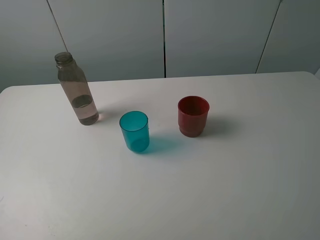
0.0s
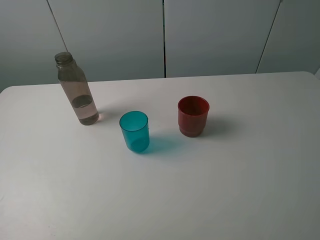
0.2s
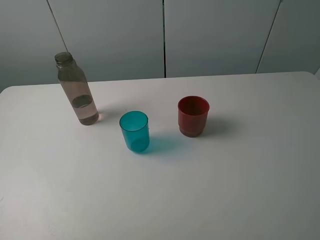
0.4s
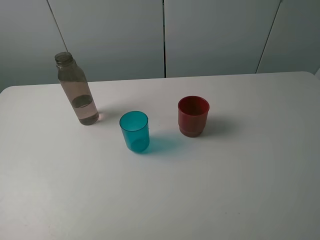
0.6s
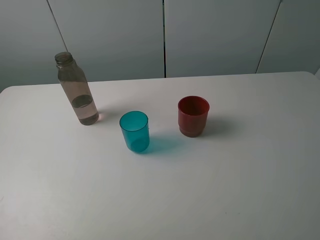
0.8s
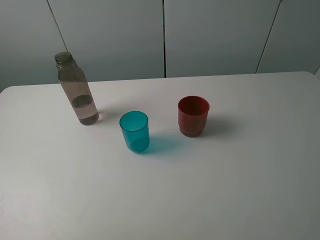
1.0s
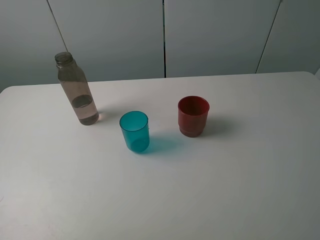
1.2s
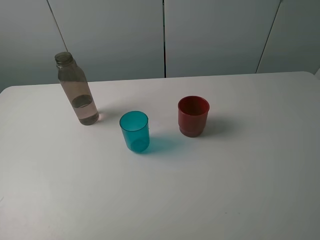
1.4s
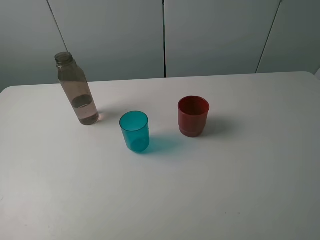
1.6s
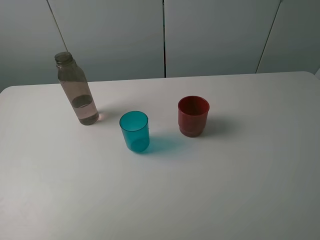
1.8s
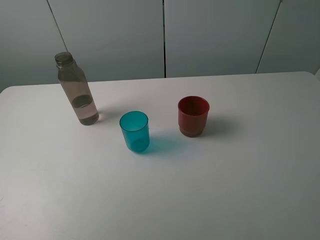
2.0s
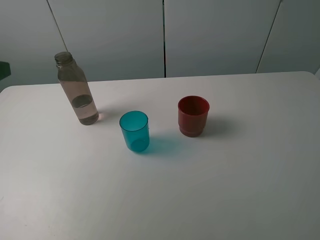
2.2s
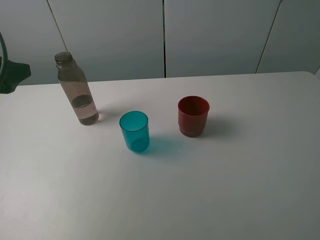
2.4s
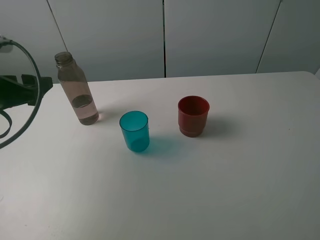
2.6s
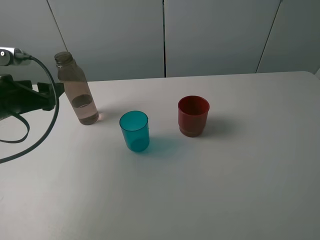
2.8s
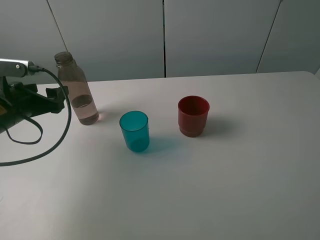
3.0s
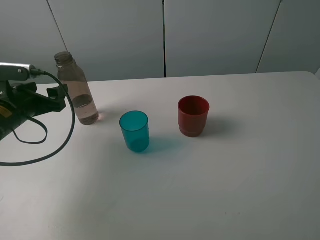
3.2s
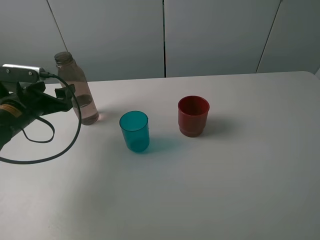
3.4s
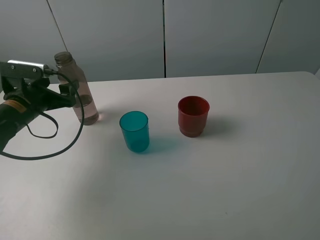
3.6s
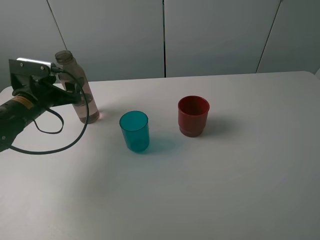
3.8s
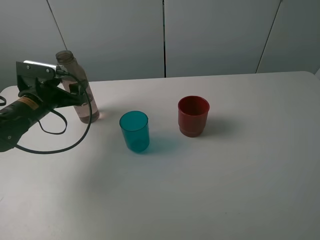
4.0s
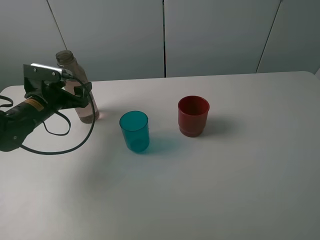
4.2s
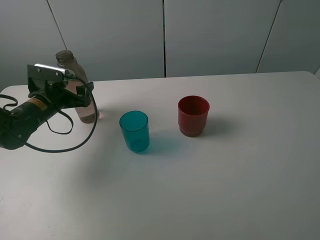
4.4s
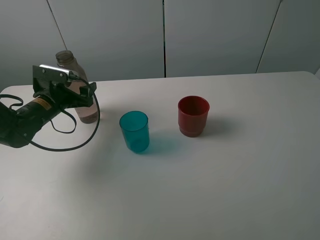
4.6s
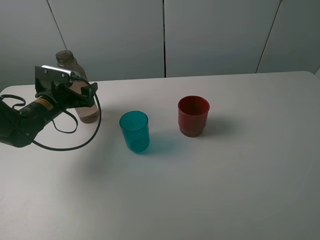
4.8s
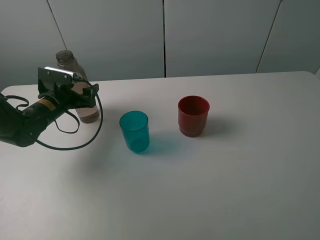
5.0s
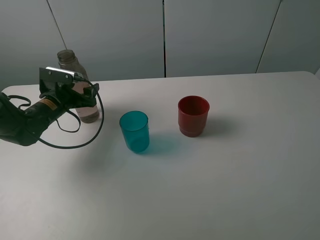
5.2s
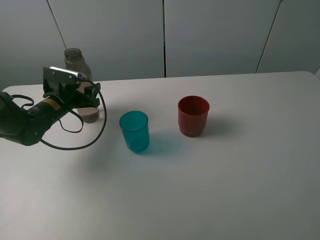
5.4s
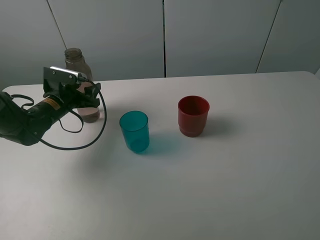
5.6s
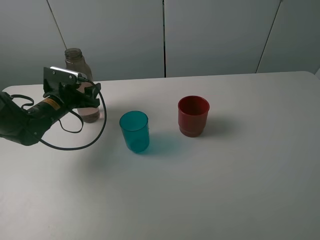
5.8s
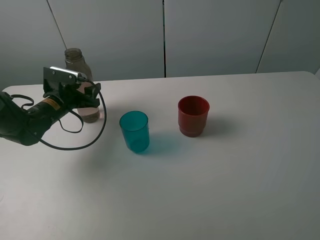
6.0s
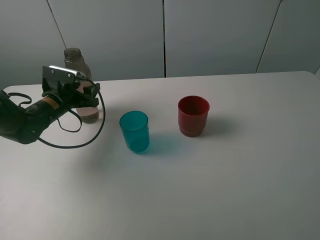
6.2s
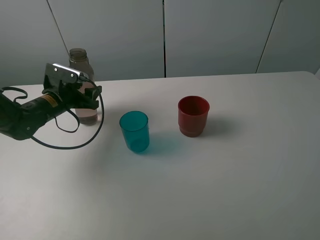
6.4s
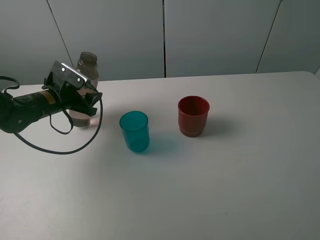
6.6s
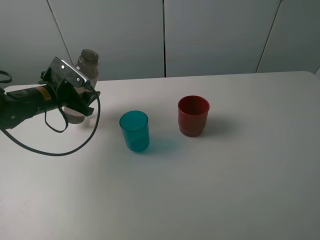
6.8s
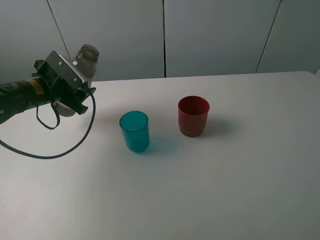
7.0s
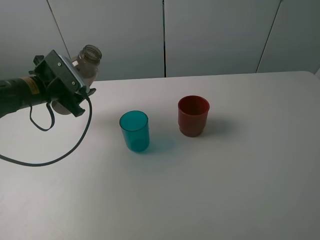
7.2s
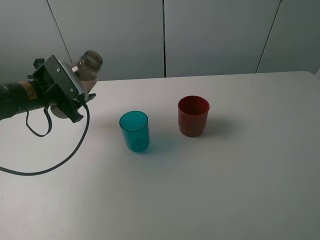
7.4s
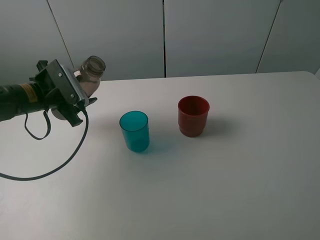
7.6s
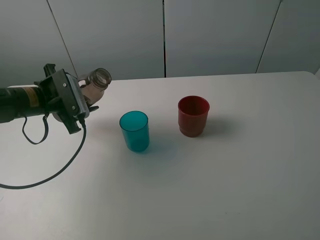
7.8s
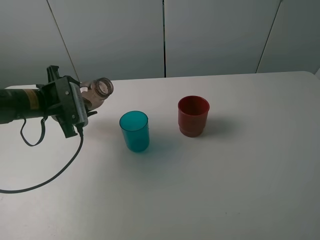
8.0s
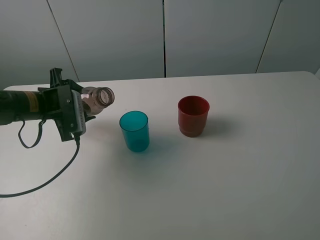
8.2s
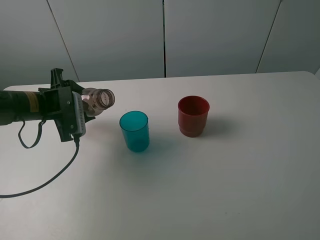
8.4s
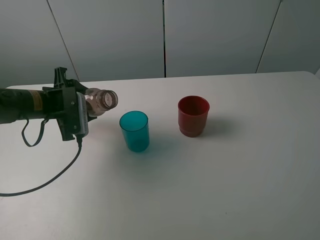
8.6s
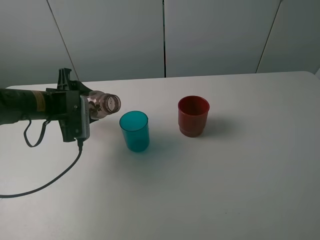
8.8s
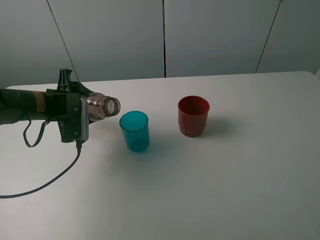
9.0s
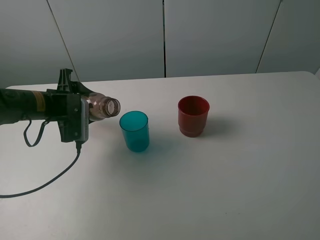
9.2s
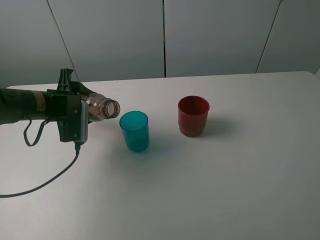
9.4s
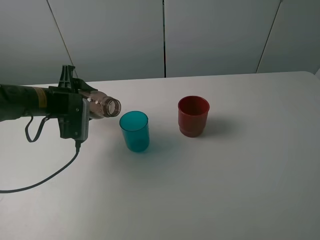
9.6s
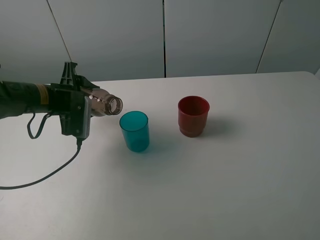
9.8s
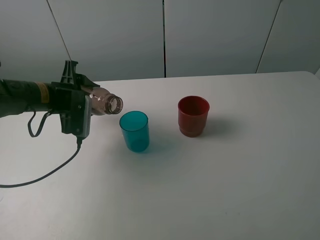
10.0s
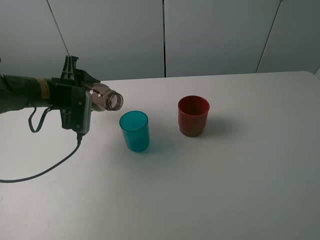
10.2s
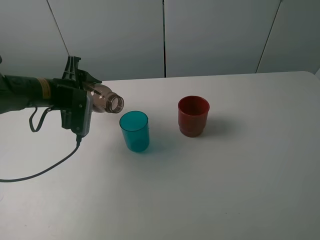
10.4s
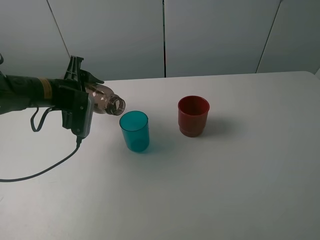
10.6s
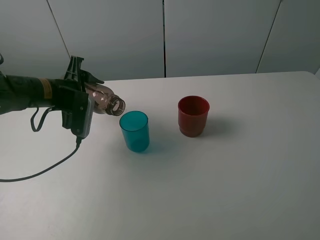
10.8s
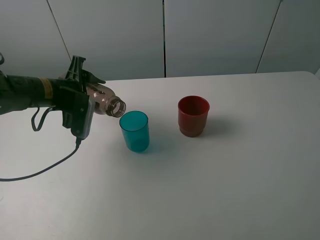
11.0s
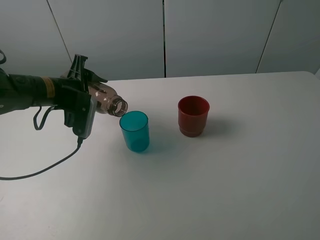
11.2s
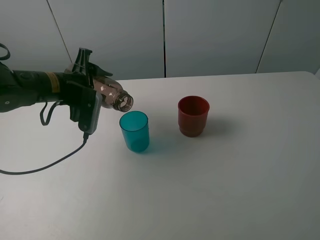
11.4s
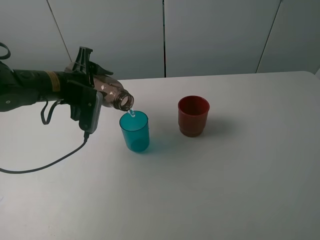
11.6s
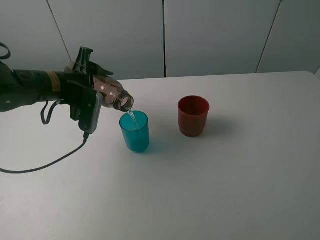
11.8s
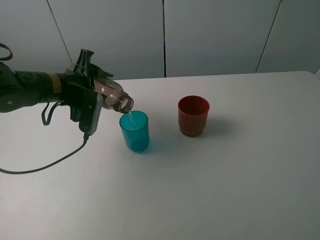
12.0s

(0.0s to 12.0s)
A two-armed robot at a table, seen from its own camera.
Task of the whole recording: pick up the bottle and pour water into the cup, then pick up the cup containing water and pour it into another cup.
Step, 0.0s - 5.6s: Grasp the brown bottle with the left gripper.
1.6s - 3.0s: The left gripper travels forward and downward by approximately 30 cm.
3.0s - 4.4s: The left gripper heads forward and downward, covering about 10 cm.
4.4s - 6.0s: The left gripper closes.
6.0s - 7.6s: The left gripper travels upward and backward by roughly 10 cm.
9.0s - 10.4s: The grippers make only small movements.
10.4s - 12.0s: The grippers stay close to where they were, moving slightly.

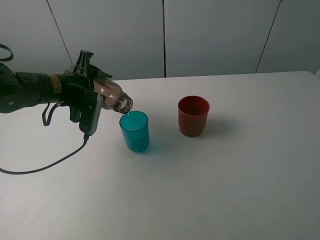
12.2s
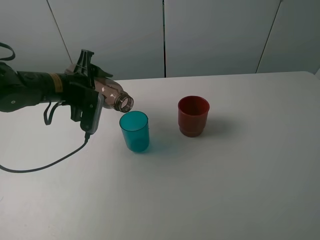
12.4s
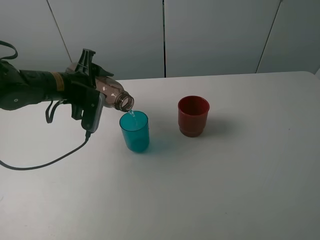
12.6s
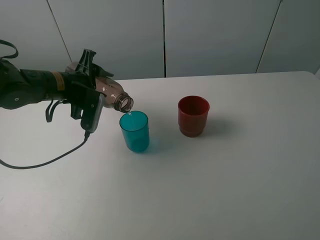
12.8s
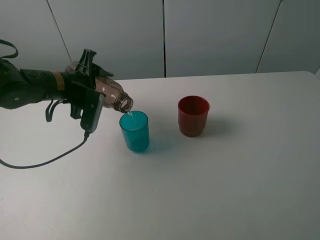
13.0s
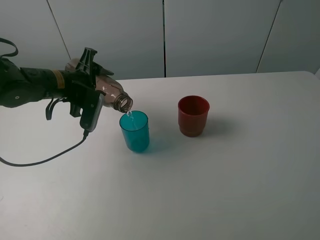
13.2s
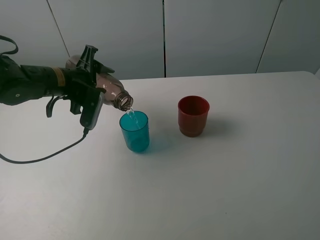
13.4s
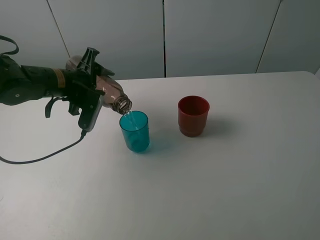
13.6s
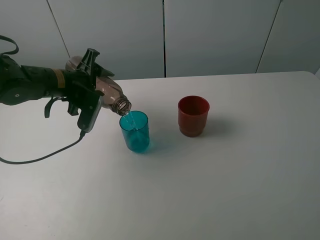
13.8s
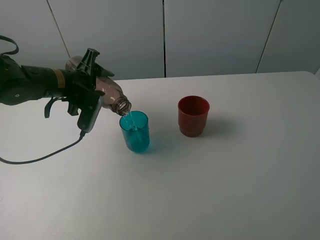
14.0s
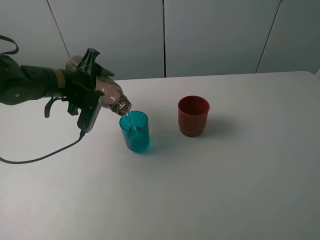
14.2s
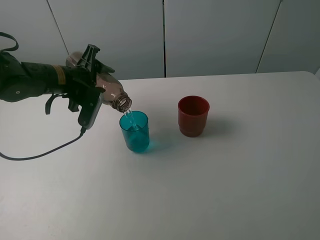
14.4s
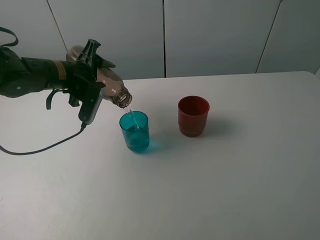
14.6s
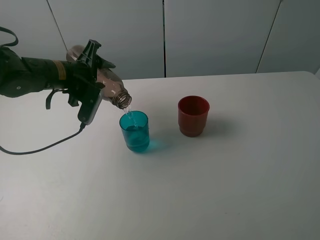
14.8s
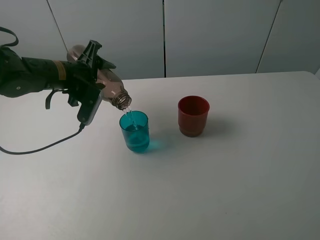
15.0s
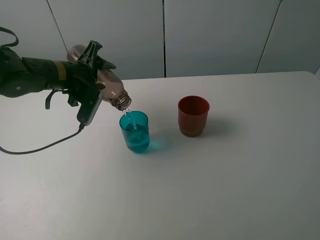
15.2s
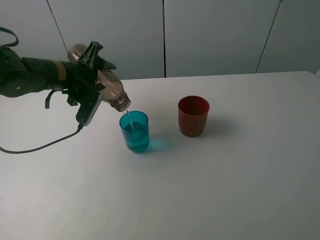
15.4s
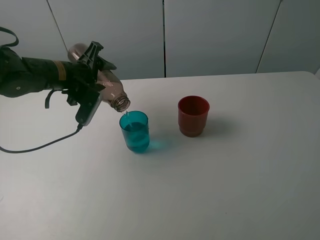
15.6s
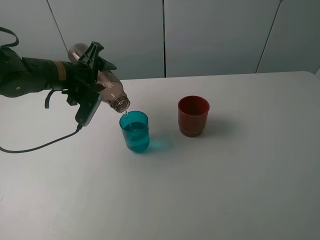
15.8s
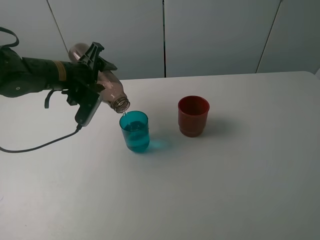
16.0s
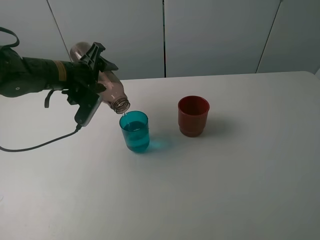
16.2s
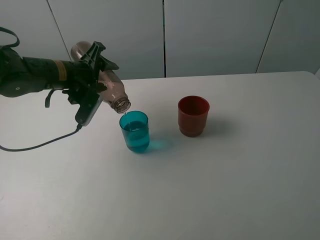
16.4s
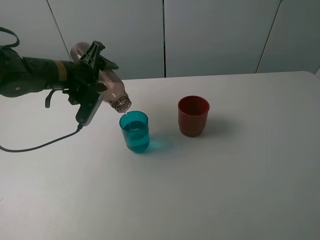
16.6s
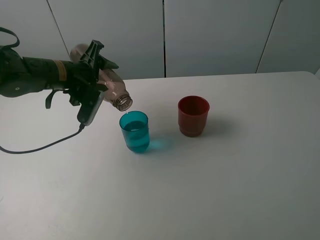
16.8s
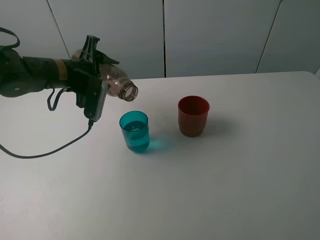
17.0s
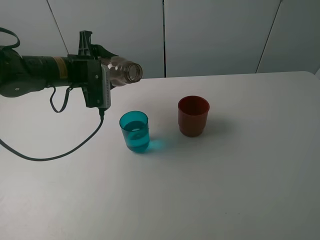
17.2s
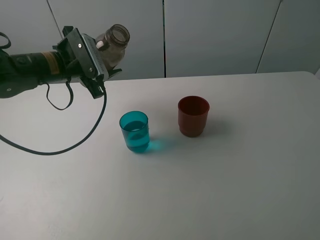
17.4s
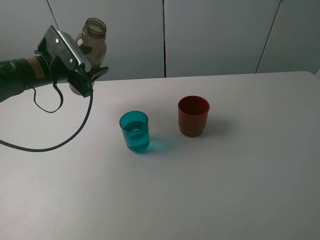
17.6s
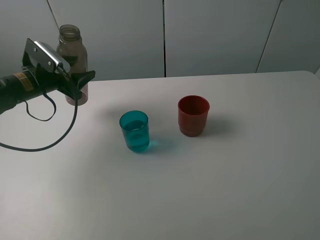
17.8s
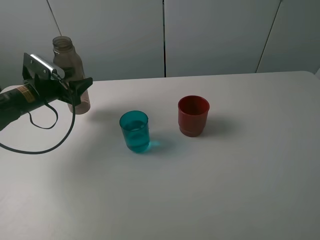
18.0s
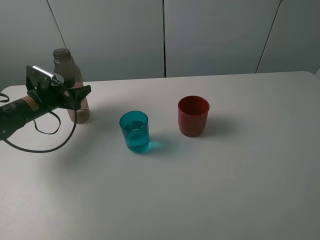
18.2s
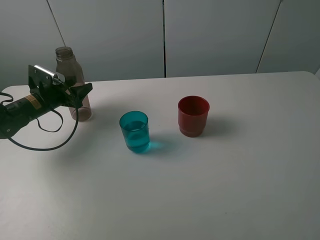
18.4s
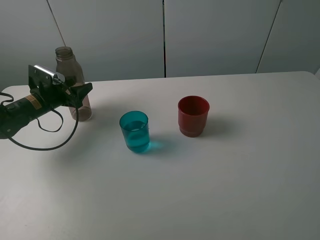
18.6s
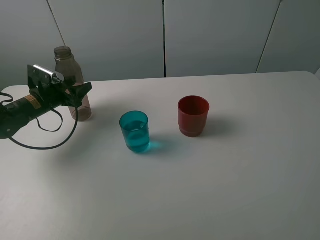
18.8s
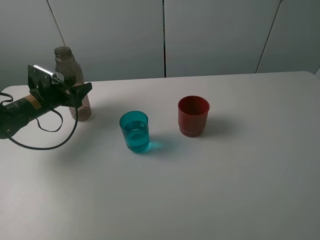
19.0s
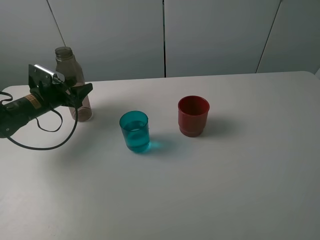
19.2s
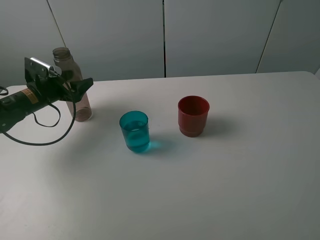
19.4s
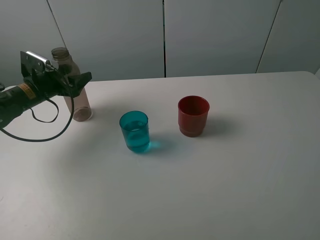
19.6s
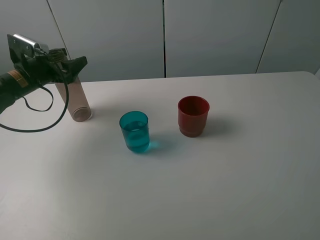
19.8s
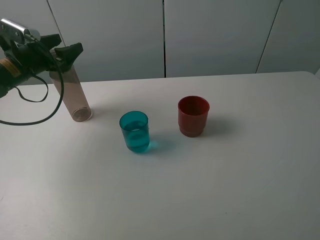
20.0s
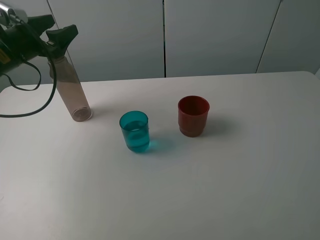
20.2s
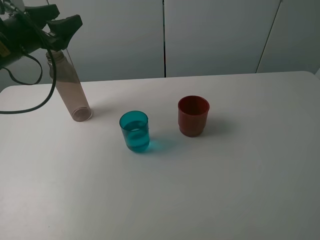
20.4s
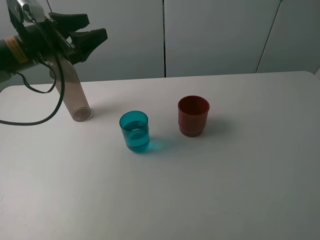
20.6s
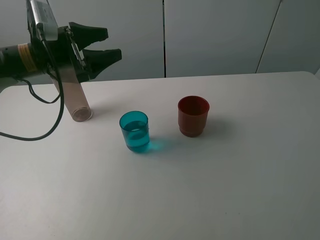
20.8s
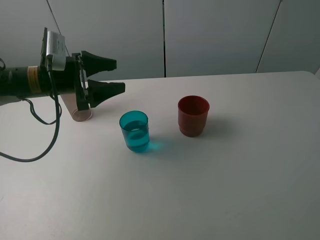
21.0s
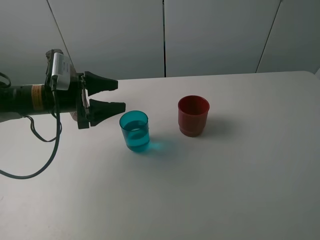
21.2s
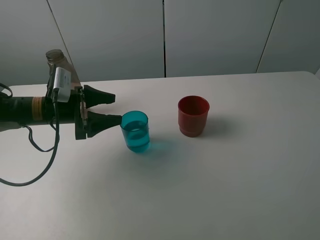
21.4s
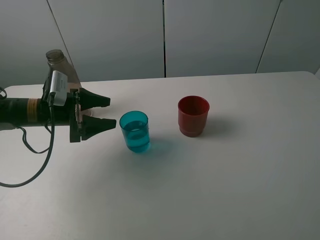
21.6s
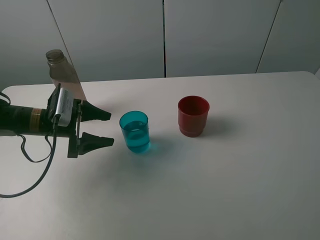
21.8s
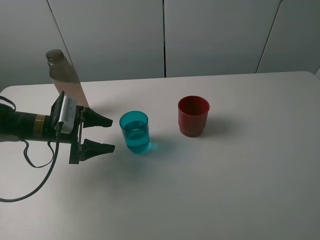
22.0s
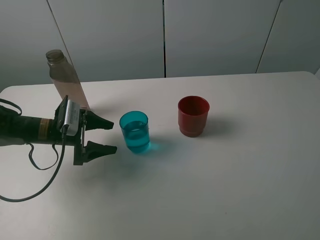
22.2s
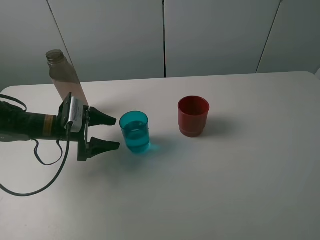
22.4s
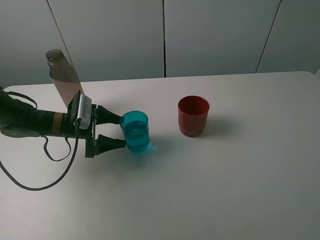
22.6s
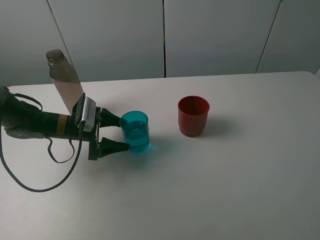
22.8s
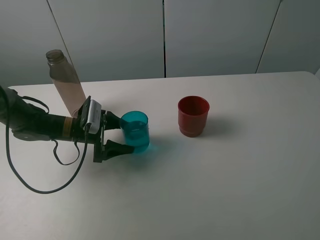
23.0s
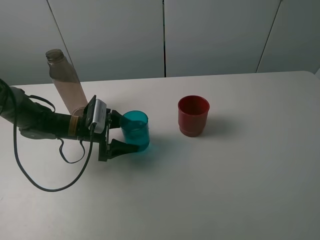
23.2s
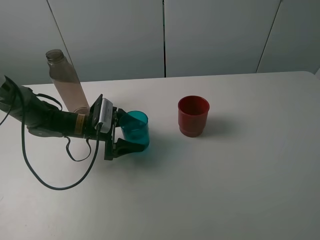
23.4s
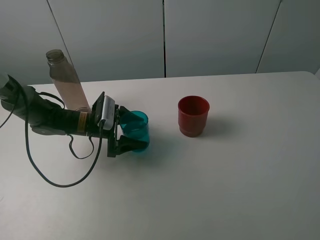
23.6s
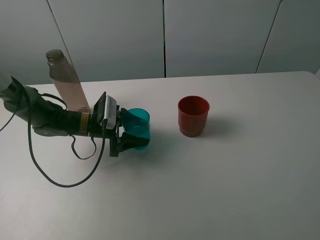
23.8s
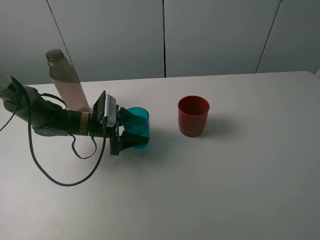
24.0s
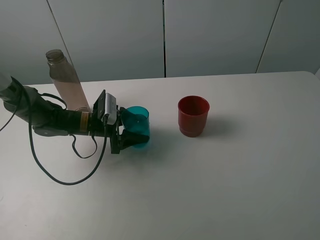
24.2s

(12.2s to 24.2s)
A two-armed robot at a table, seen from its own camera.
Task of the whole recording: pick up the bottle and pour water into the cup, then pick up the cup containing water and pour it into another cup.
Step, 12.2s - 16.8s: Pour water from brown bottle to blue cup with the left gripper.
Step, 17.0s - 19.6s: Place the brown bottle with the left gripper.
Step, 19.8s - 24.2s: Grasp the blue cup with the left gripper.
12.2s - 15.2s: There are only small adjustments of the grippers.
16.6s - 18.2s: The left gripper goes roughly 15 cm to the left and downward.
18.2s - 19.8s: The left gripper travels upward by roughly 10 cm, and opens up.
19.8s - 21.2s: The left gripper travels to the right and backward by approximately 10 cm.
21.2s - 22.6s: The left gripper goes some 10 cm downward.
22.6s - 24.2s: The left gripper changes place by roughly 5 cm, and closes up.
